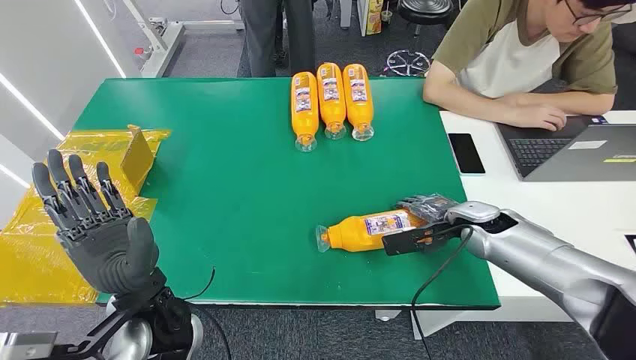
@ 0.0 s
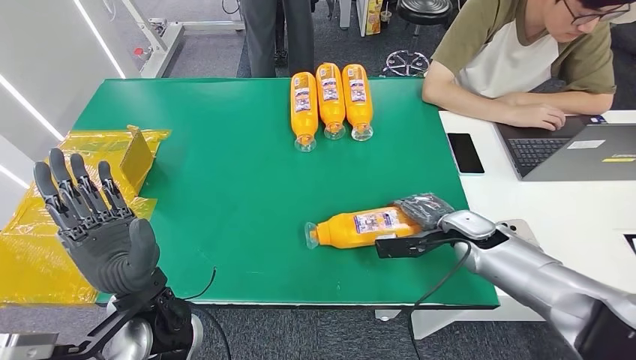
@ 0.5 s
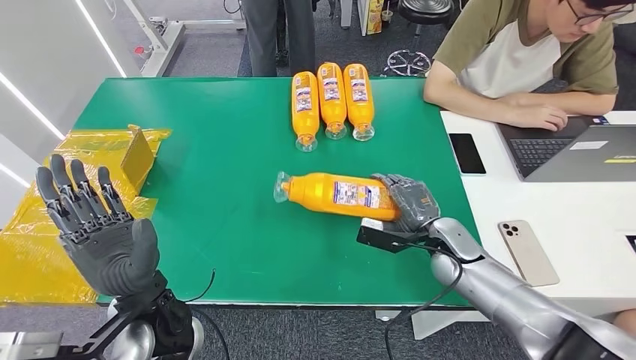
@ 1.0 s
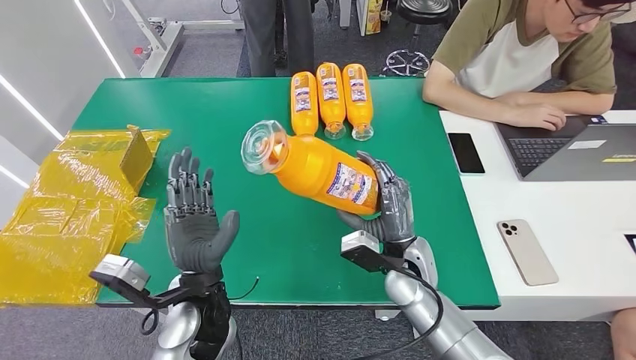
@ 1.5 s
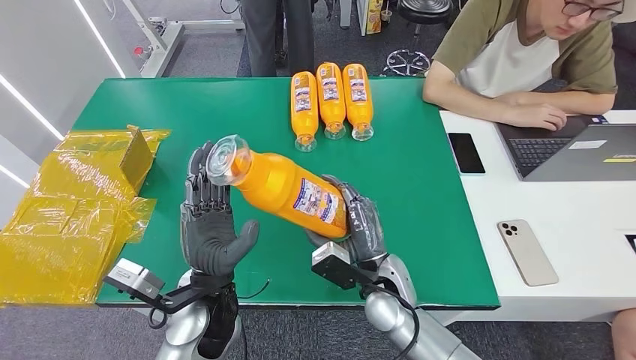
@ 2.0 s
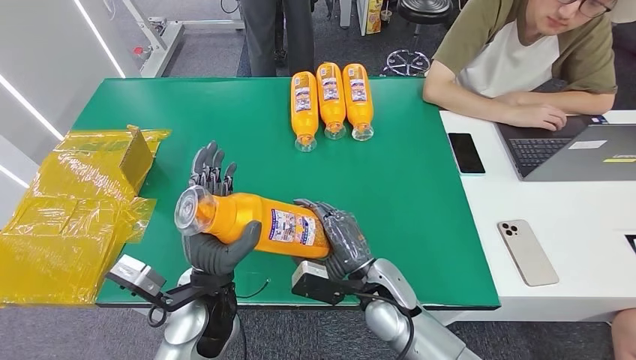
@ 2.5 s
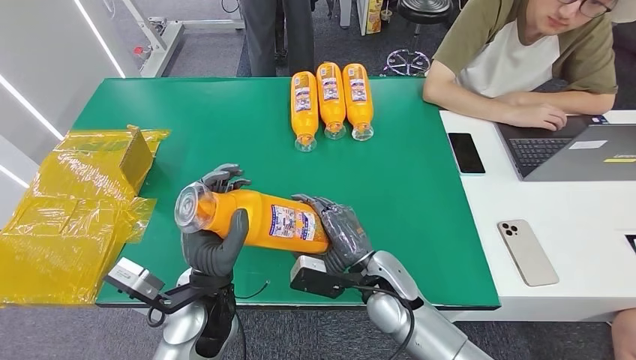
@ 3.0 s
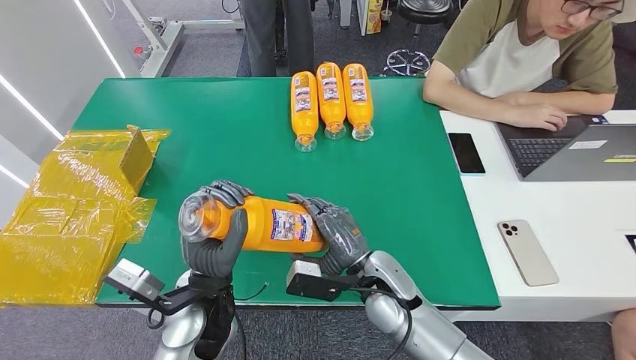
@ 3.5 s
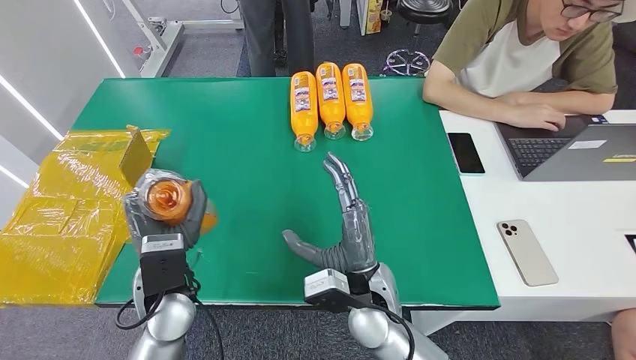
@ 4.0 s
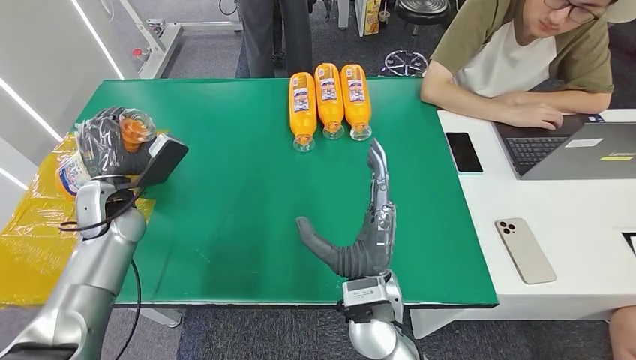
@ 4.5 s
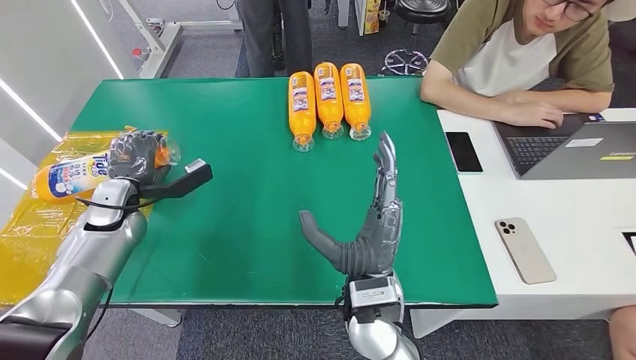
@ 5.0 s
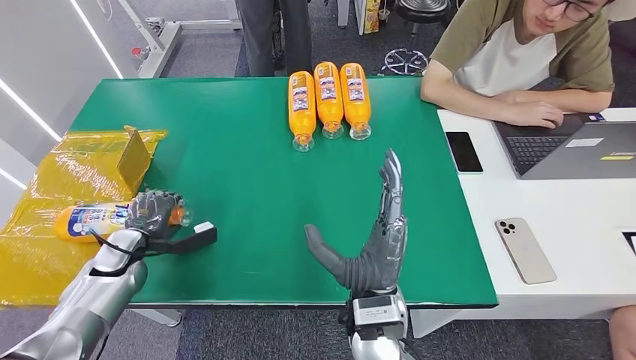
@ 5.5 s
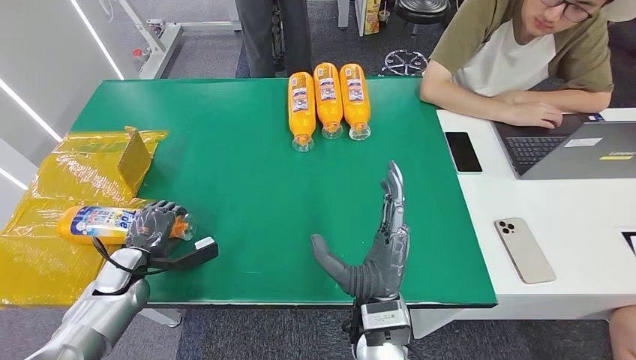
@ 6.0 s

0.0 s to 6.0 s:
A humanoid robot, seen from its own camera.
Step, 0.0 to 1.5 s: Pick up the bottle from the table.
Step, 2.0 to 6.0 s: Turn the bottle to the front side.
2.0 to 4.0 s: The right hand ends up approximately 5 cm from where it was, while the left hand moves to the left, roughly 5 cm.
4.0 to 6.0 s: The left hand goes about 25 cm to the left and downward. The right hand ends up approximately 5 cm from where it was.
